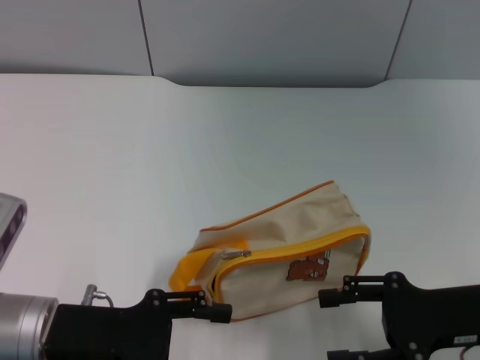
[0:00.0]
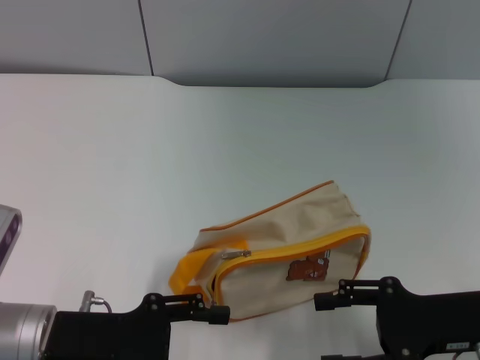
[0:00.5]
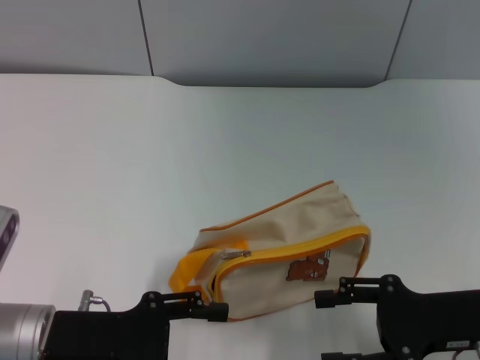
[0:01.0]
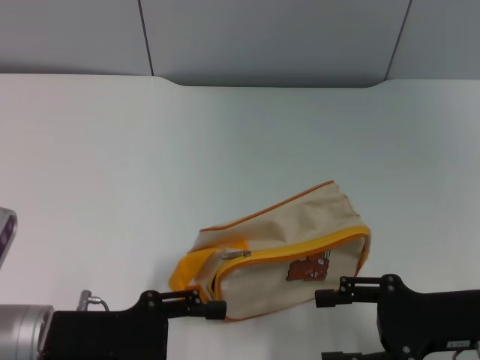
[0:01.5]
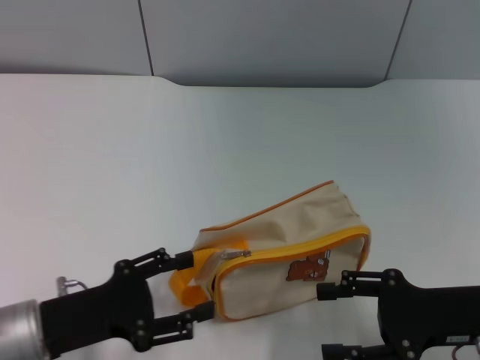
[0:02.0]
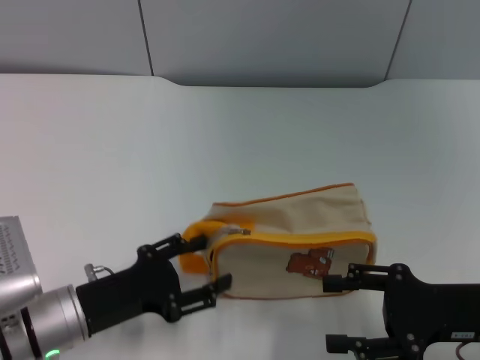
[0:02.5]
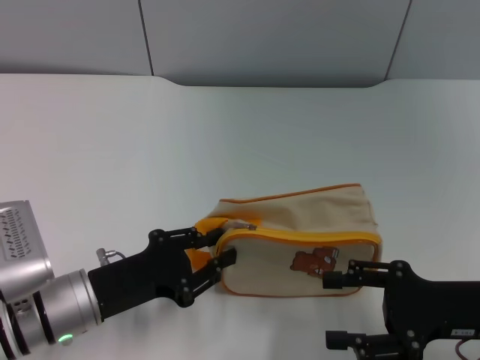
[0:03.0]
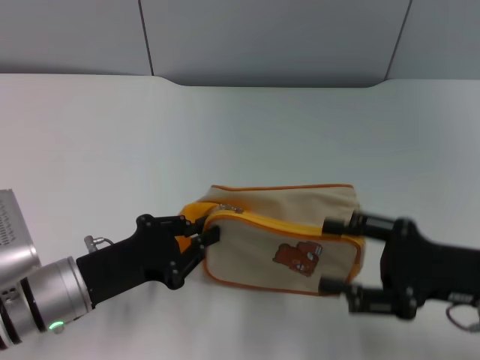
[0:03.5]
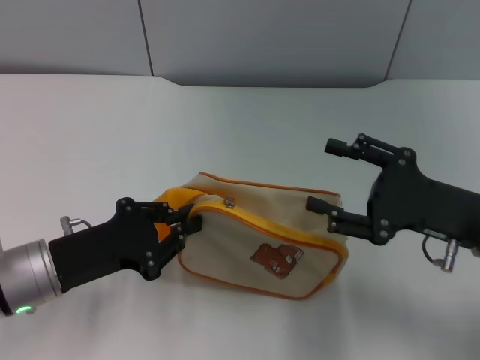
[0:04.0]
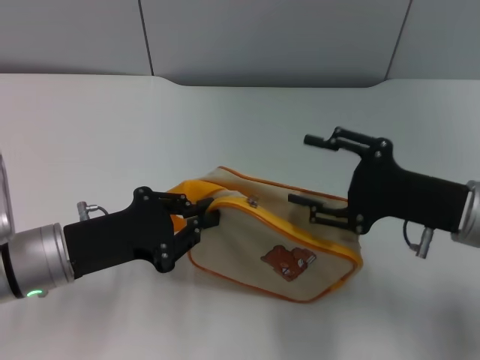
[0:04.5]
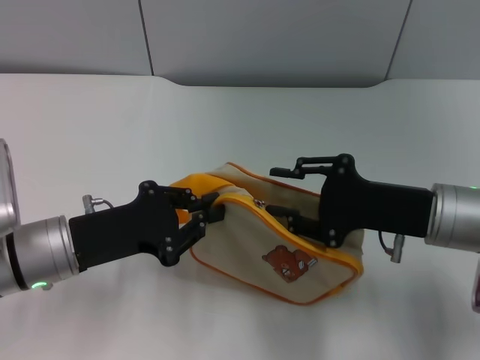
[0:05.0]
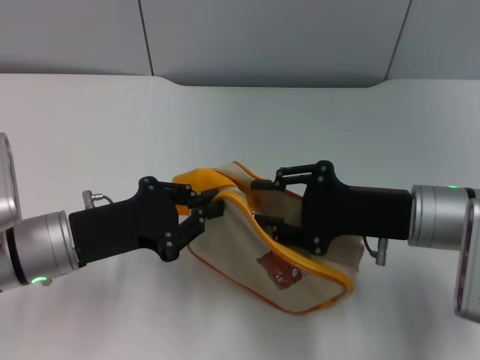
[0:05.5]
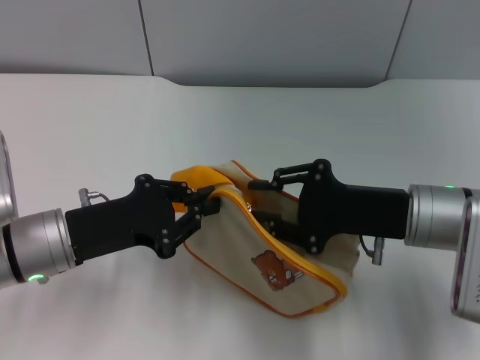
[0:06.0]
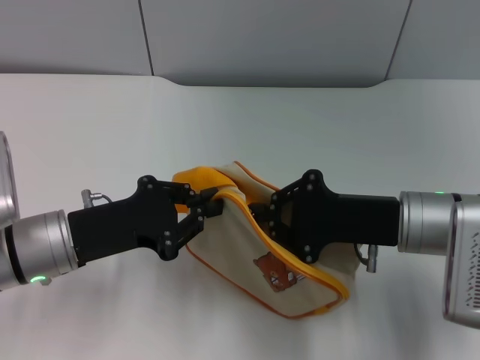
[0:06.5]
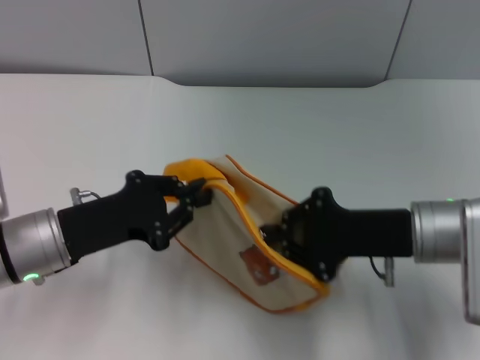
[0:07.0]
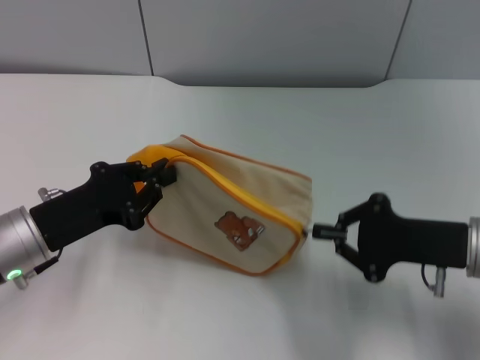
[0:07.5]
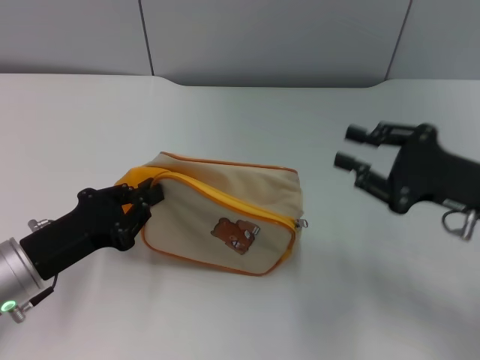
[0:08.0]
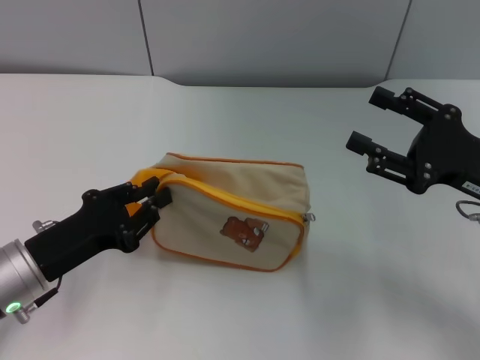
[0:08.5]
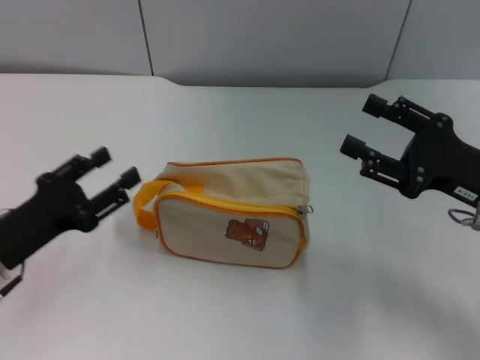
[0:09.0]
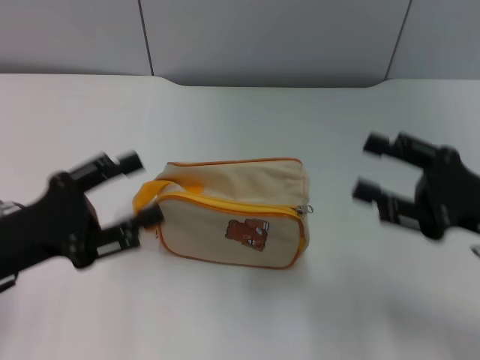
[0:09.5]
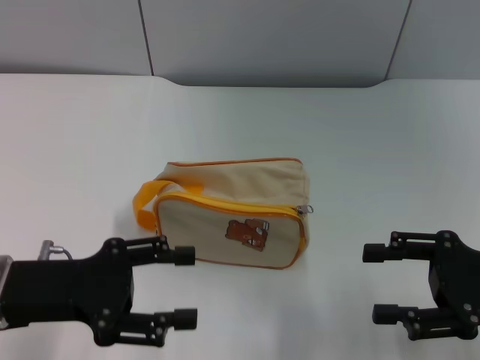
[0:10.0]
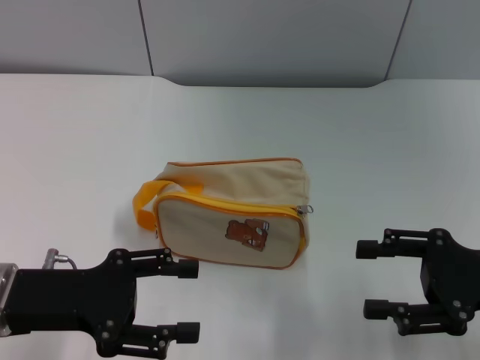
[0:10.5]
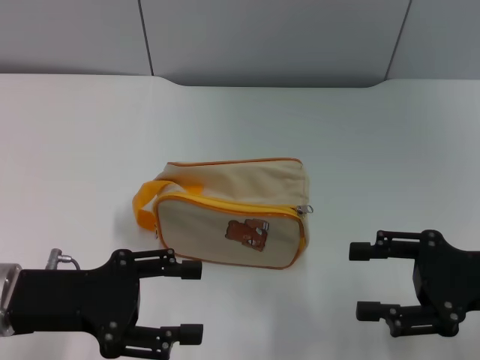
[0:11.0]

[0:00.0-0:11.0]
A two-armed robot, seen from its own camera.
Step, 0.0 to 4.0 s: Pick up the bag with left gripper.
Step, 4.5 to 7.5 s: Unzip the zipper of bag with right gripper.
Step, 8.0 to 9.0 s: Place the bag on the table with left gripper.
2.0 to 3.5 s: The left gripper closes its fingers.
3.5 to 5.5 s: The right gripper is displaced forward and to the left by about 10 cm, and closes up; the left gripper changes place by approximately 5 cm.
5.5 to 7.5 s: The right gripper goes approximately 5 cm to the right, and closes its fingers.
7.5 to 9.0 s: The right gripper opens its fingers. The left gripper opens its fingers.
9.0 to 11.0 s: The left gripper opens up.

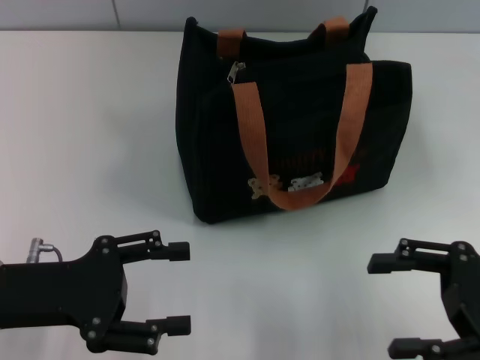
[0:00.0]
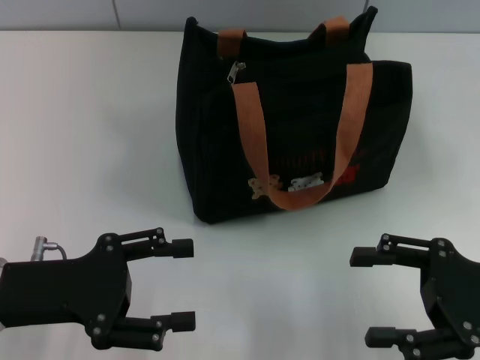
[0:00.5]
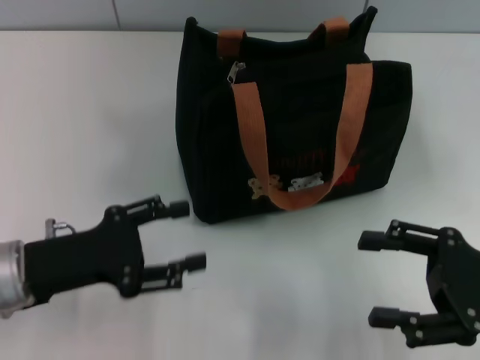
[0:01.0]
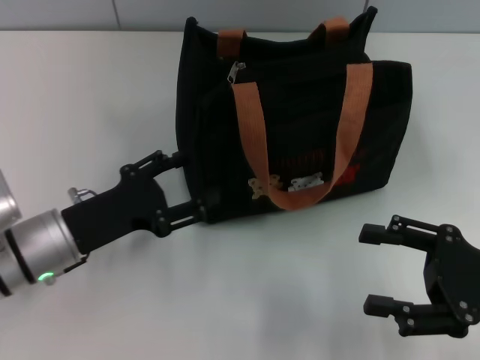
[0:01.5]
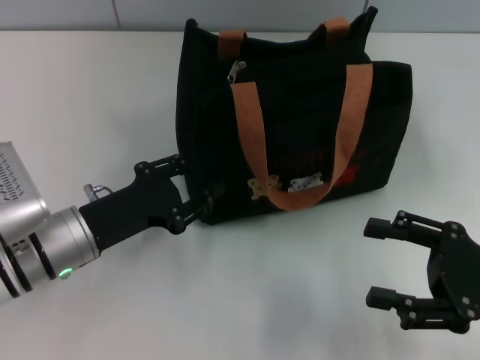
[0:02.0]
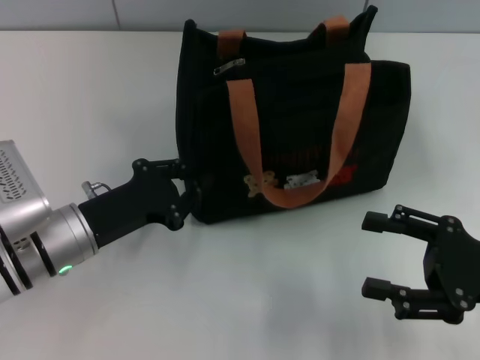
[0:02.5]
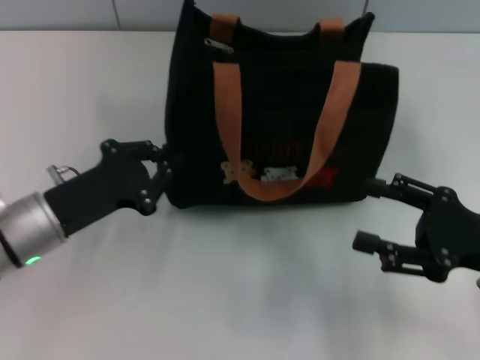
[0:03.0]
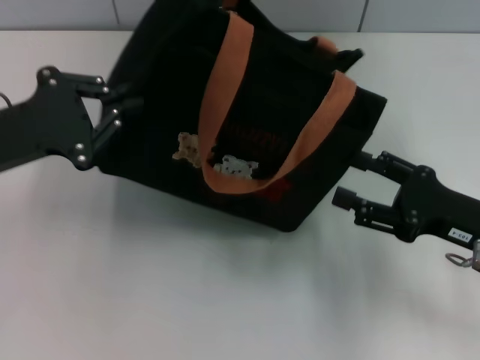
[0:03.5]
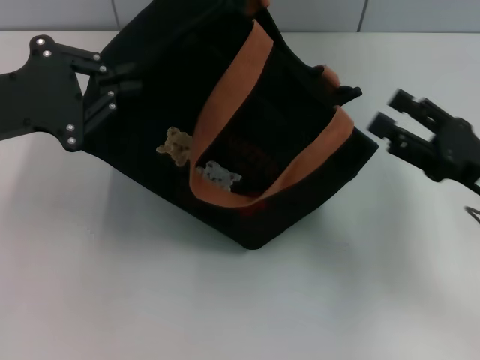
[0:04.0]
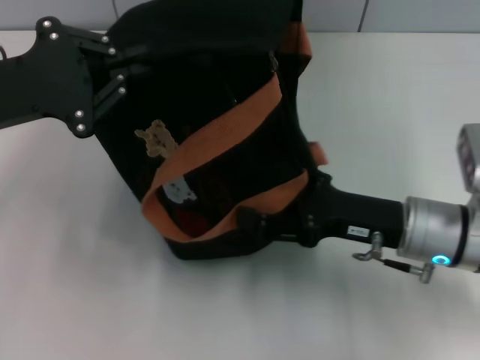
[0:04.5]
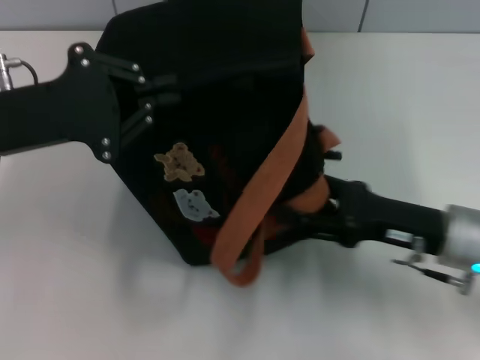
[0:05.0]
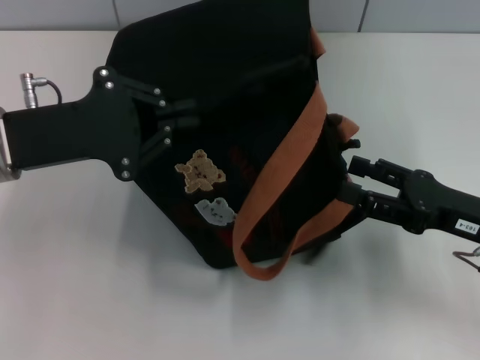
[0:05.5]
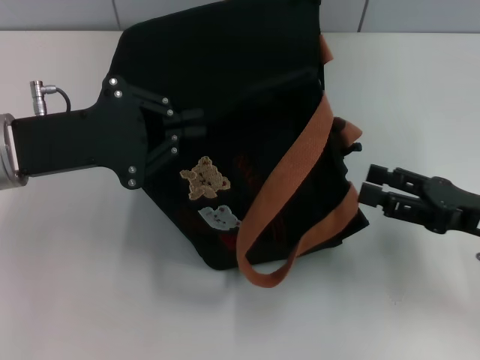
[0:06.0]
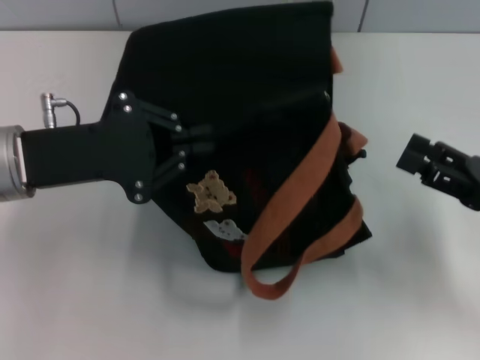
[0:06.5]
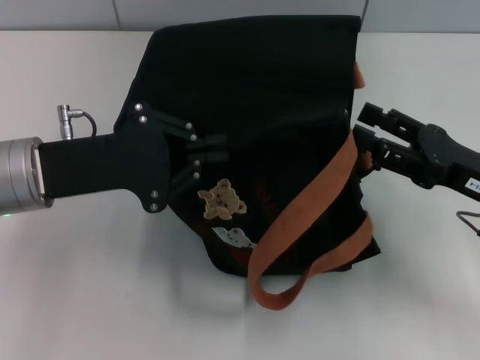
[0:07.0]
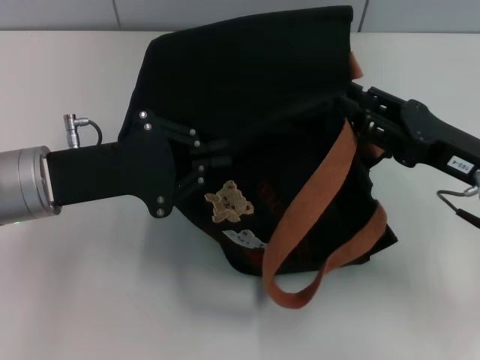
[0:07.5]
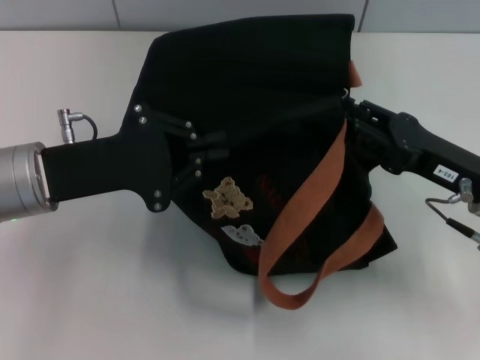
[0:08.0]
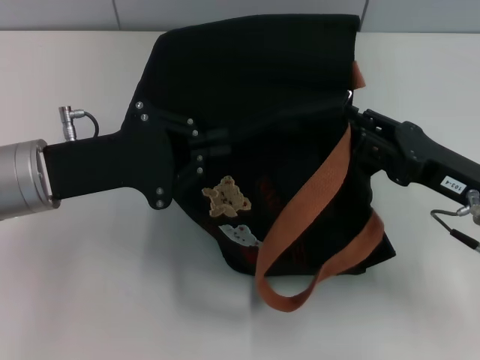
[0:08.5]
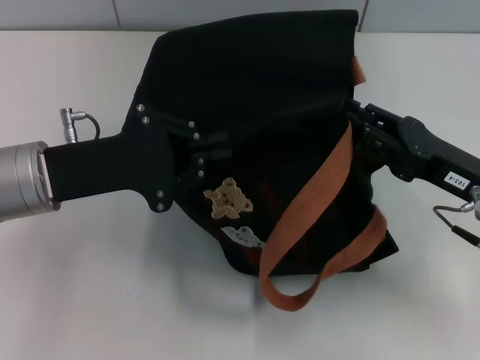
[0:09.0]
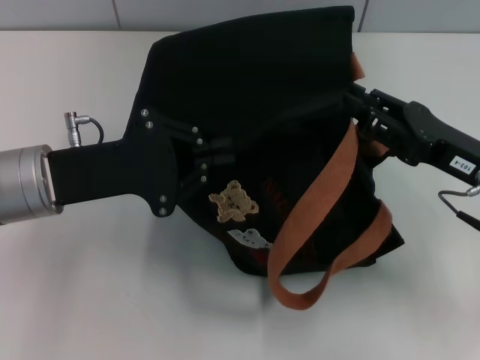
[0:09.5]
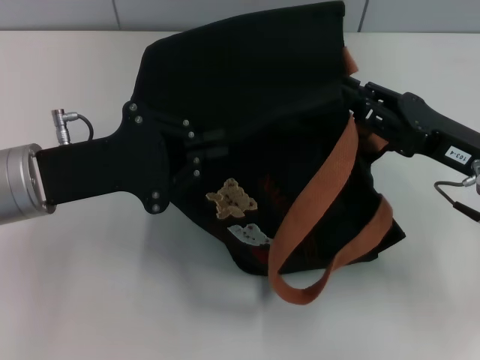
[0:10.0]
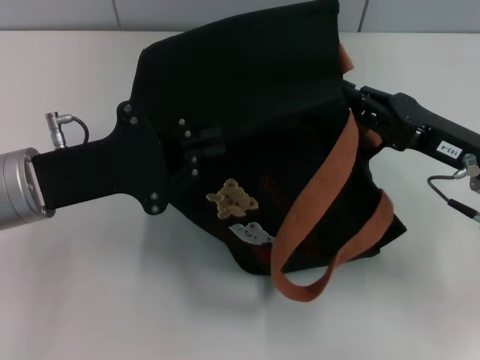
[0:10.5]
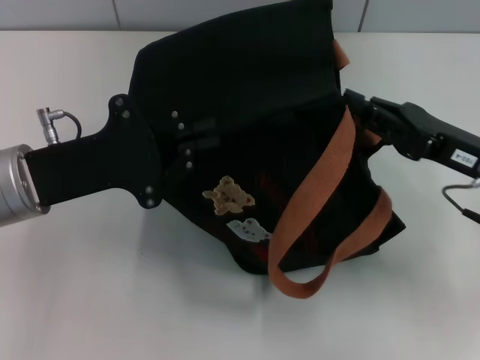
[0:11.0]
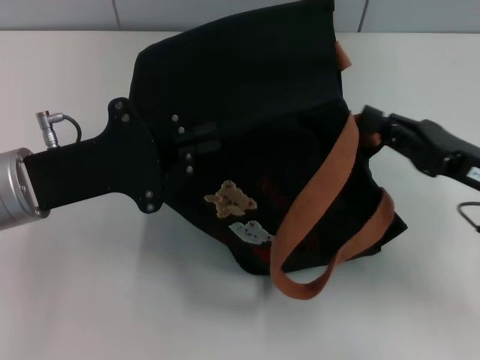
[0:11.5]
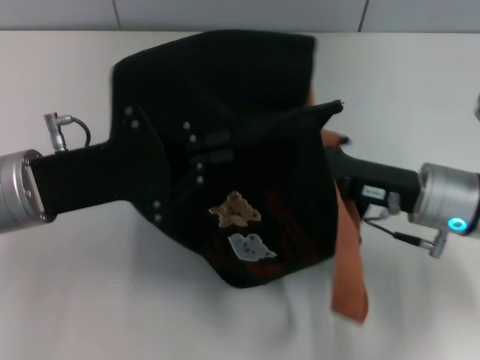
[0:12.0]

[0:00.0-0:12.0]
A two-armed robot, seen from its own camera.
0.0 to 2.0 s: The left gripper heads downward, forward and to the right, covering some 10 cm.
2.0 to 4.0 s: The left gripper moves upward and to the left, about 15 cm, and closes. The right gripper shifts roughly 5 cm forward.
4.0 to 6.0 s: The right gripper moves about 10 cm to the left and comes back.
6.0 to 8.0 s: The right gripper changes place by approximately 5 cm, and closes.
8.0 to 10.0 s: The grippers make only small movements.
10.0 to 12.0 s: The right gripper is displaced to the left by approximately 5 cm, and closes up.

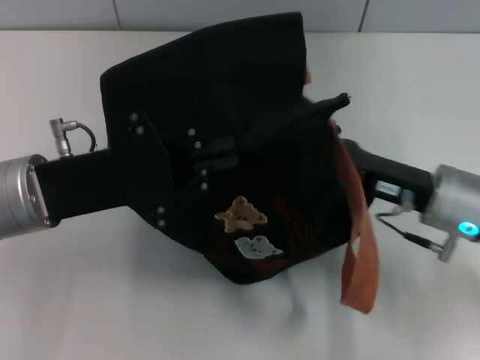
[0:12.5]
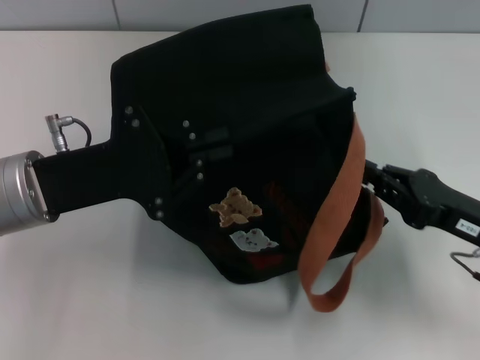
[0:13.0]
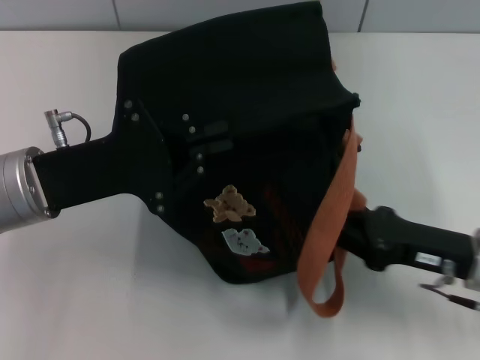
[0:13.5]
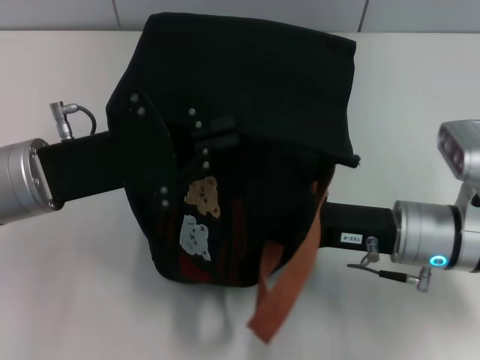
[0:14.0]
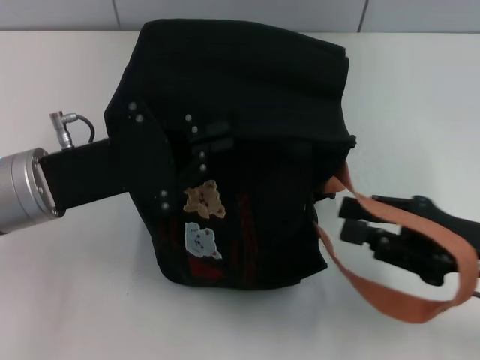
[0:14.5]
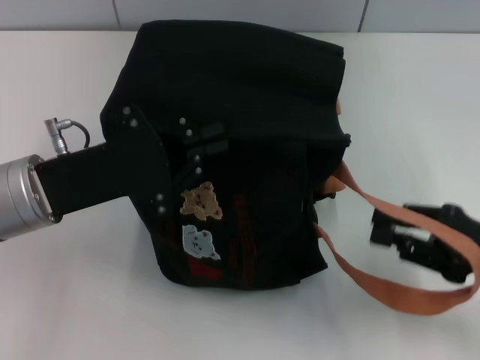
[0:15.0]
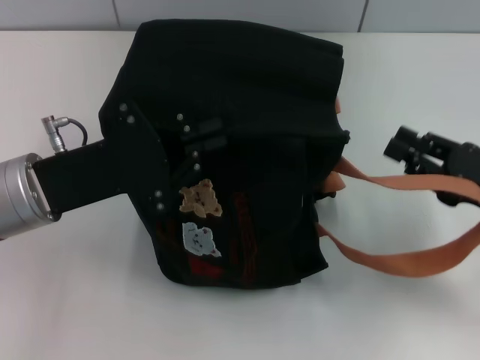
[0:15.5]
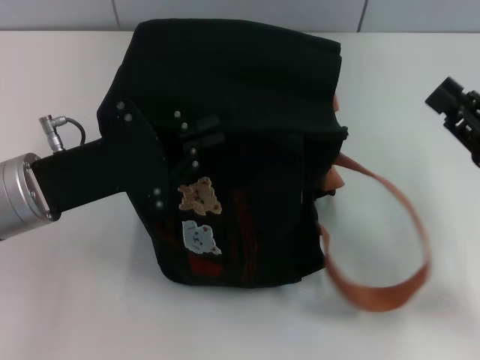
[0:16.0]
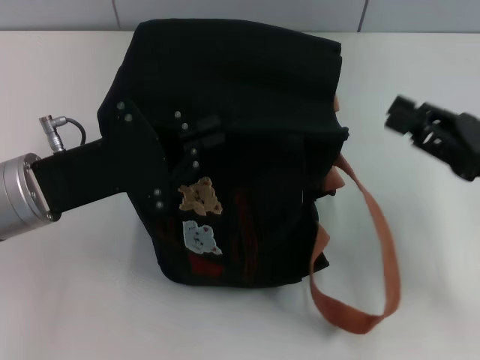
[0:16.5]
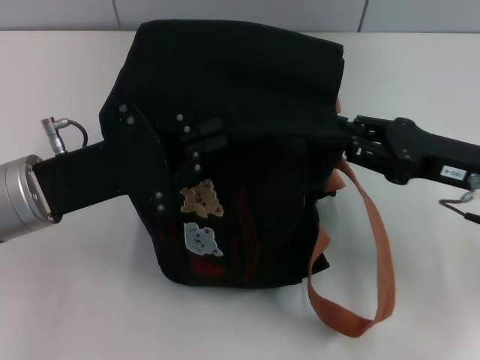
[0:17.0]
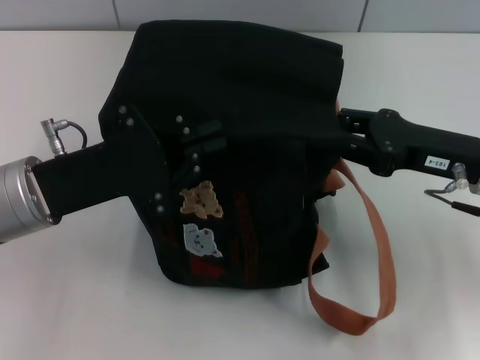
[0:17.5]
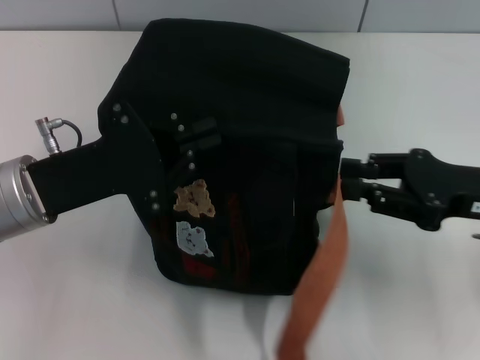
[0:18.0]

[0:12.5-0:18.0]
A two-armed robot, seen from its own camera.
12.5 to 14.5 s: The right gripper goes left and right, about 10 cm each way, reversing 2 times.
